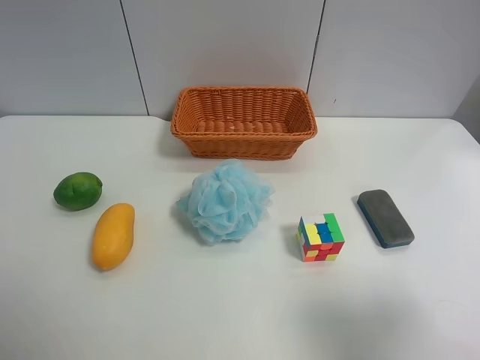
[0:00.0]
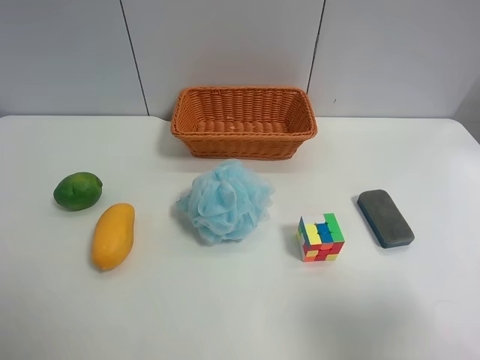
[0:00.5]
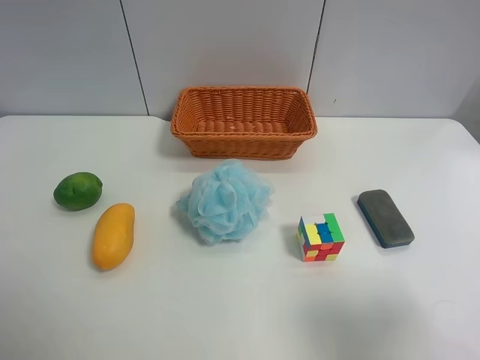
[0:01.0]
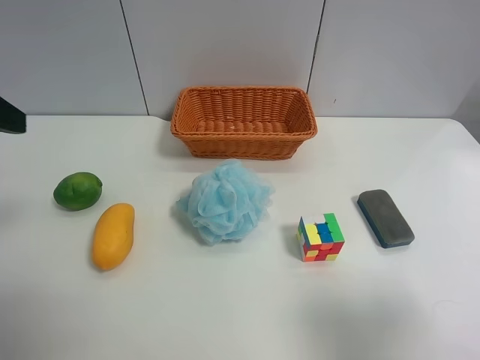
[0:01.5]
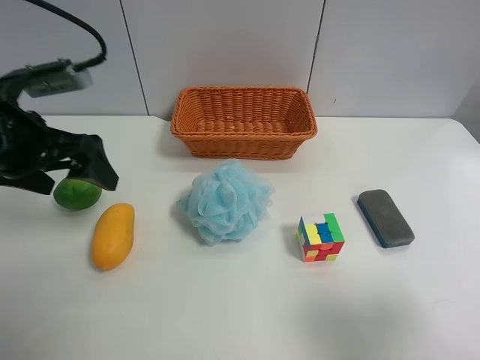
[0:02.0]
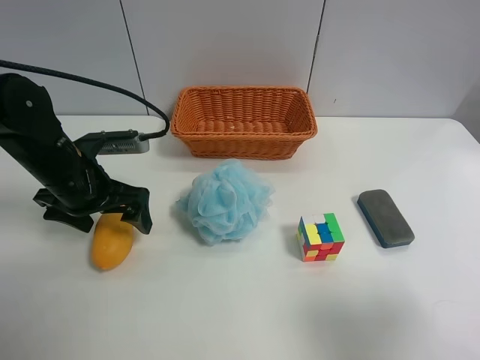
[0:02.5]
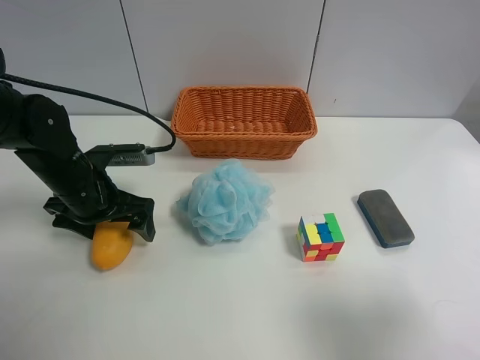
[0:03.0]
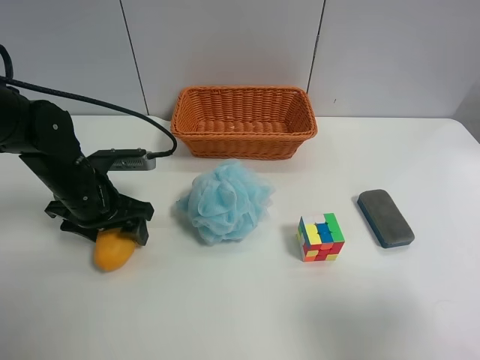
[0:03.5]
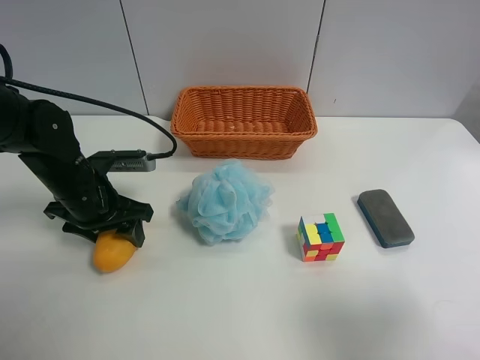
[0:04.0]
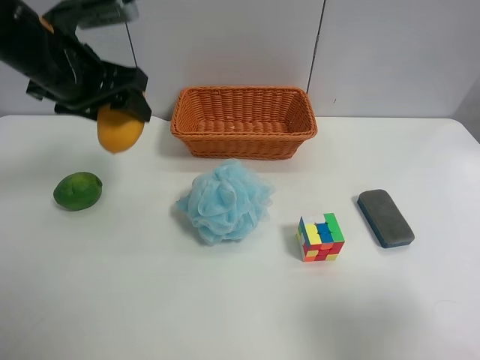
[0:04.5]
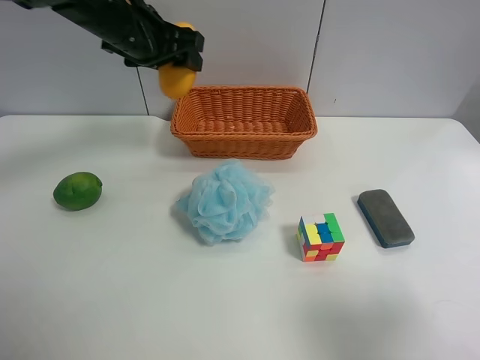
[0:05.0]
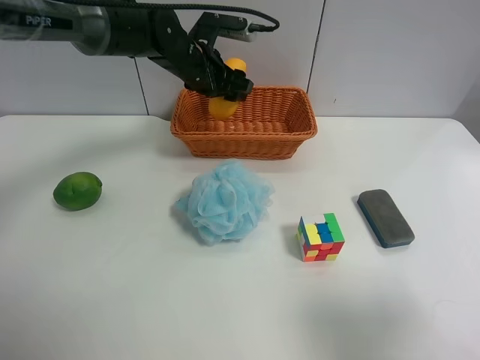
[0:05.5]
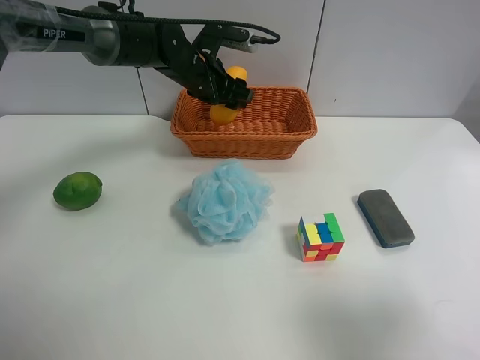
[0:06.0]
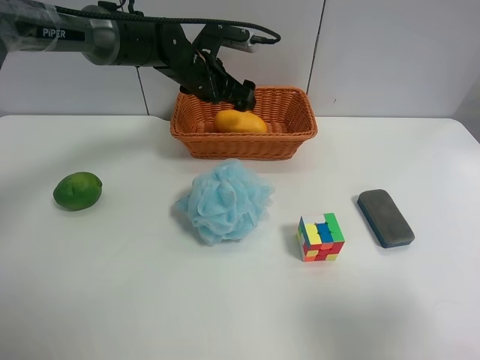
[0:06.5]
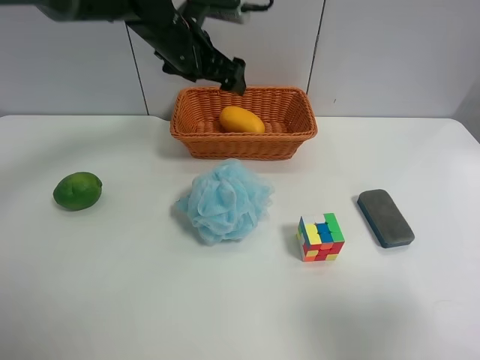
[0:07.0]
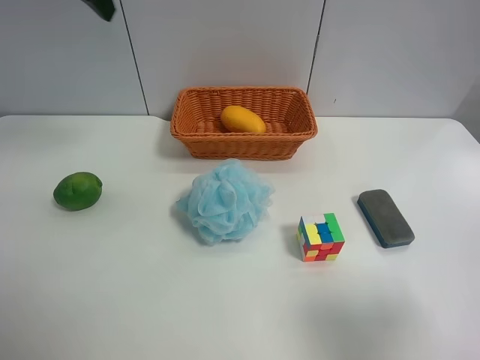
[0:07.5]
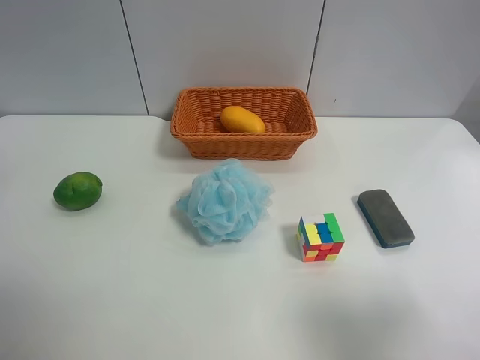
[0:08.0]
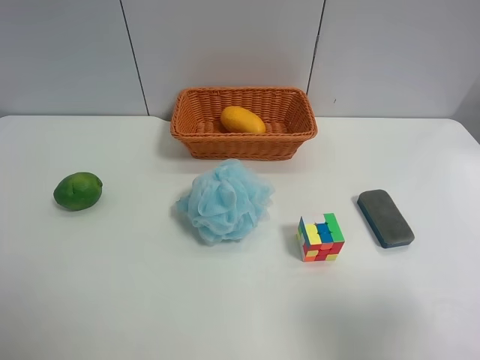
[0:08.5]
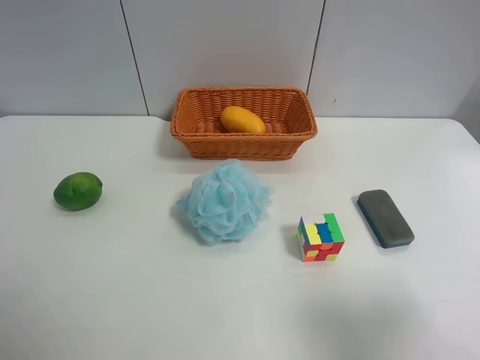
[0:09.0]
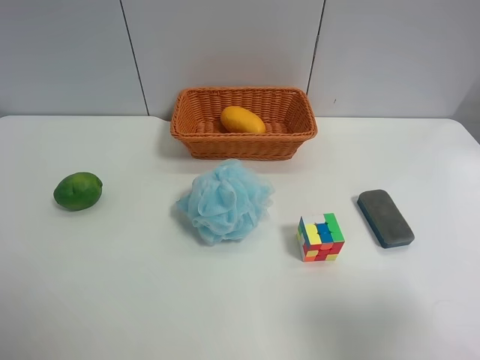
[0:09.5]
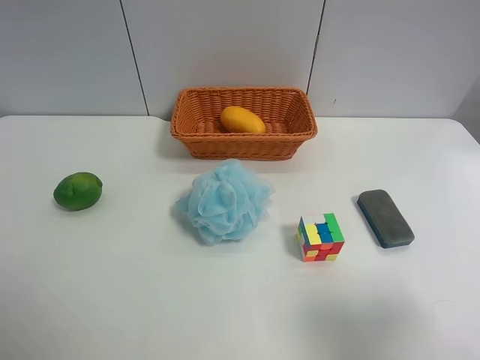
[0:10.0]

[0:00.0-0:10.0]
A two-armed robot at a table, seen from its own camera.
Task of the whole recording: Randomly grab green lemon or mangoes from the table and put them in a basket.
Step, 0:00.0 to 0:03.5: Grasp the mango with the left gripper.
Step, 0:04.0 to 0:06.5: Place the mango into the basket with the left gripper.
0:00.0 to 0:02.0: The left gripper moves forward, roughly 25 cm.
0:02.0 to 0:04.0: The left gripper heads downward, covering approximately 10 cm, and closes up.
0:04.0 to 0:06.0: The left gripper heads forward and to the right, covering some 25 cm.
0:06.0 to 0:08.0: The left gripper moves backward, to the left and upward, some 40 cm, and opens up.
